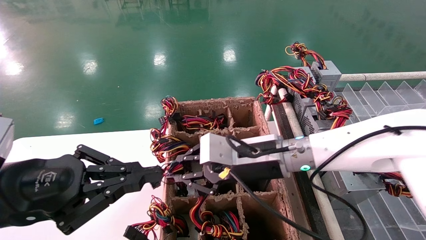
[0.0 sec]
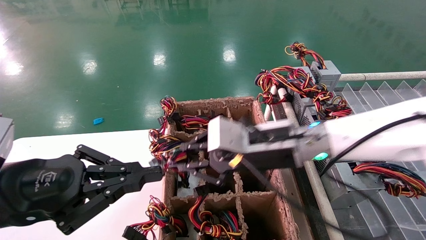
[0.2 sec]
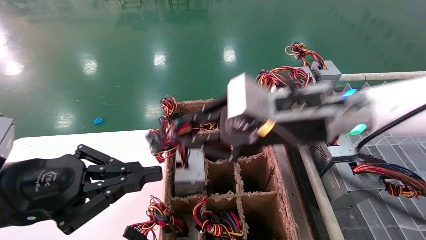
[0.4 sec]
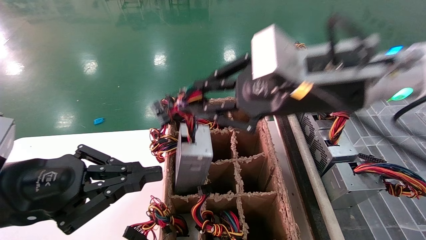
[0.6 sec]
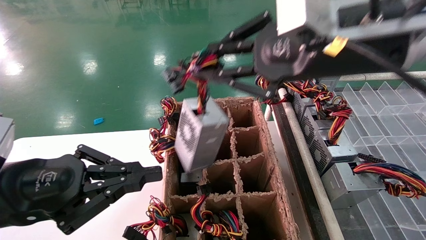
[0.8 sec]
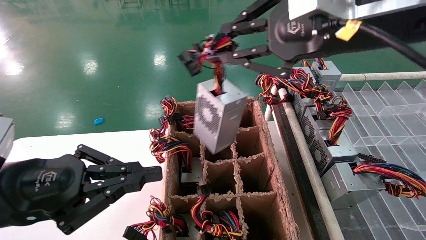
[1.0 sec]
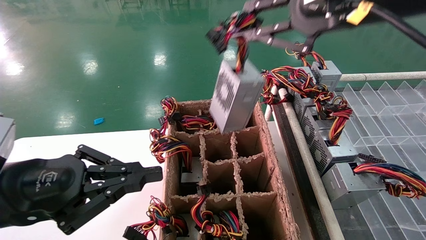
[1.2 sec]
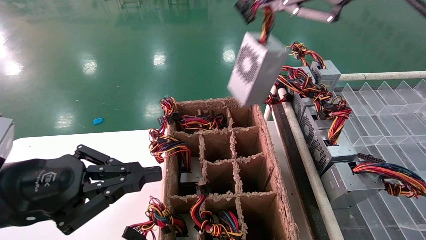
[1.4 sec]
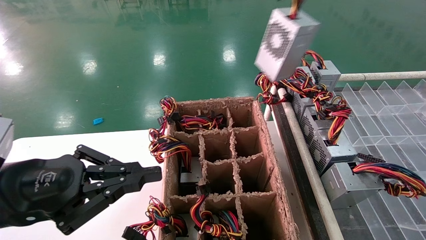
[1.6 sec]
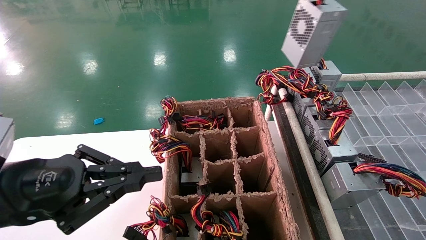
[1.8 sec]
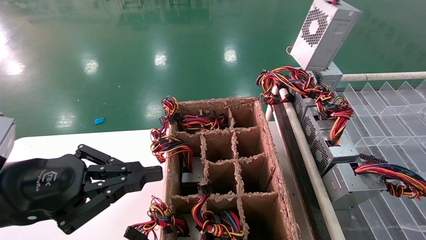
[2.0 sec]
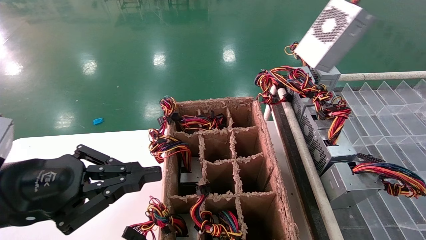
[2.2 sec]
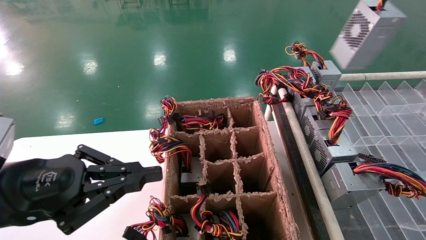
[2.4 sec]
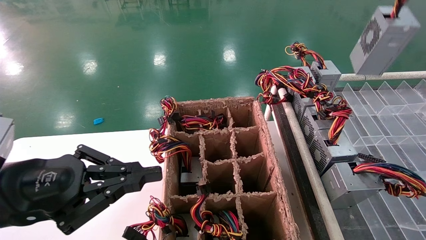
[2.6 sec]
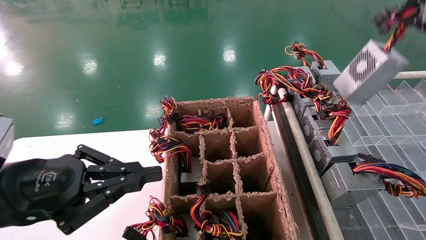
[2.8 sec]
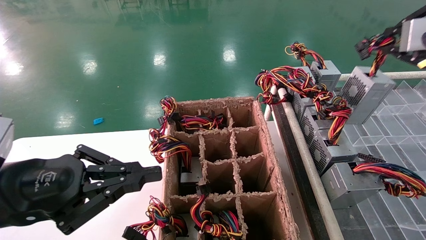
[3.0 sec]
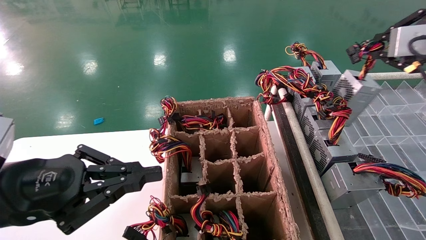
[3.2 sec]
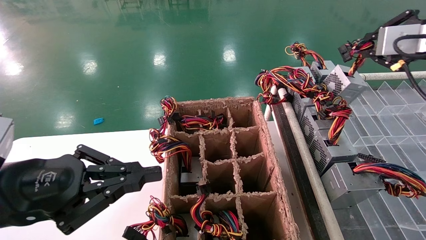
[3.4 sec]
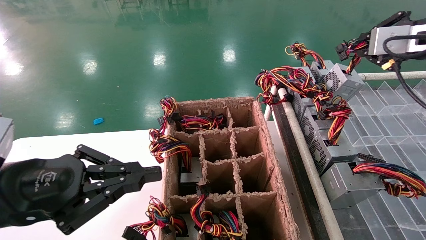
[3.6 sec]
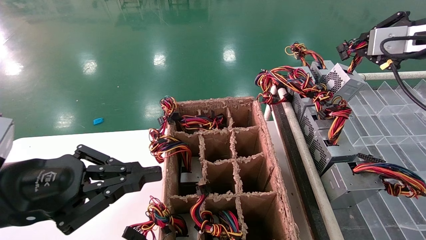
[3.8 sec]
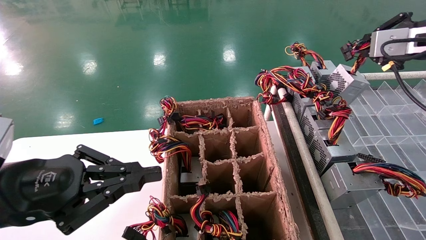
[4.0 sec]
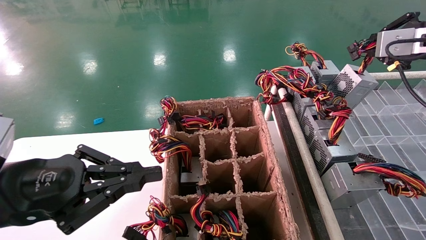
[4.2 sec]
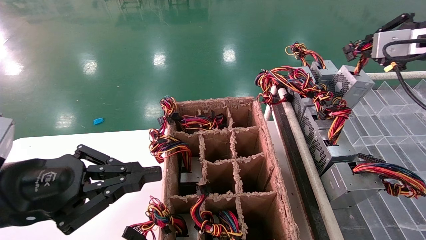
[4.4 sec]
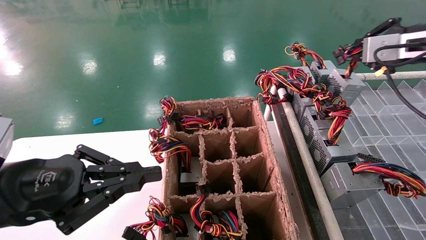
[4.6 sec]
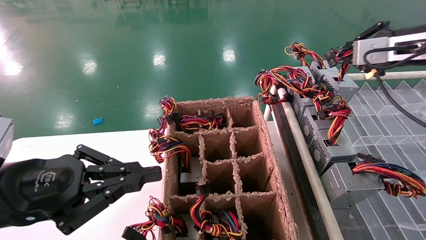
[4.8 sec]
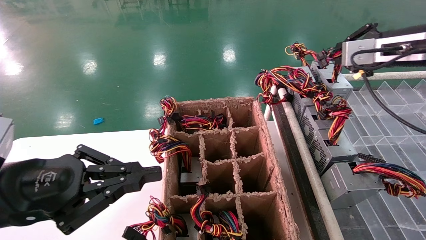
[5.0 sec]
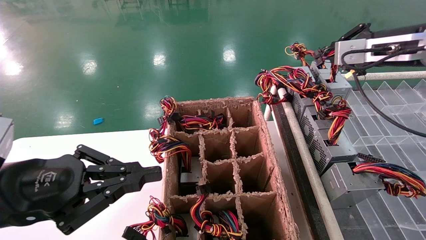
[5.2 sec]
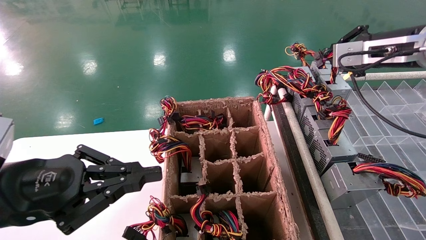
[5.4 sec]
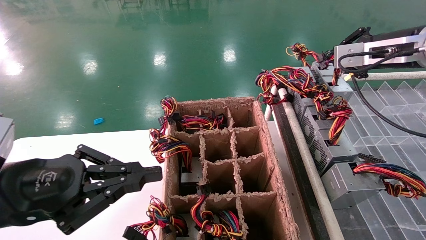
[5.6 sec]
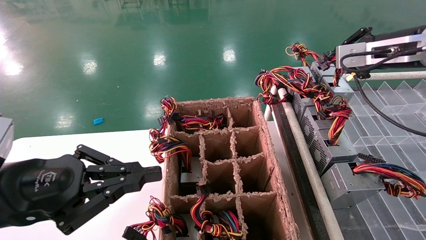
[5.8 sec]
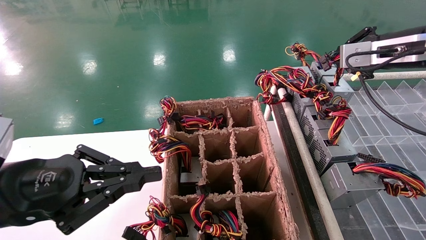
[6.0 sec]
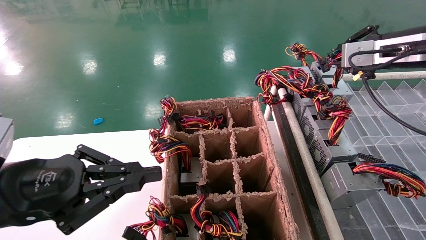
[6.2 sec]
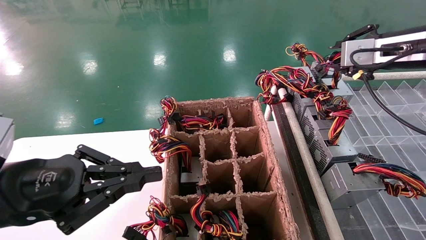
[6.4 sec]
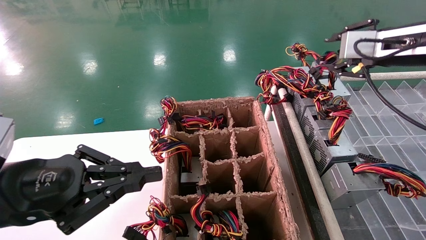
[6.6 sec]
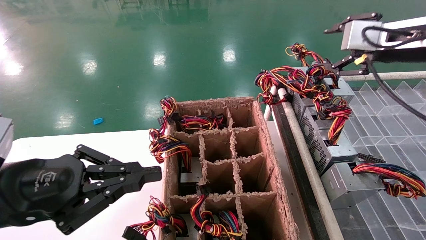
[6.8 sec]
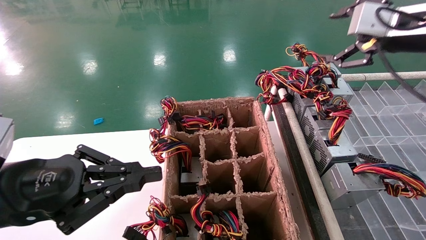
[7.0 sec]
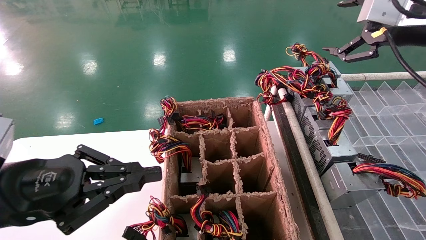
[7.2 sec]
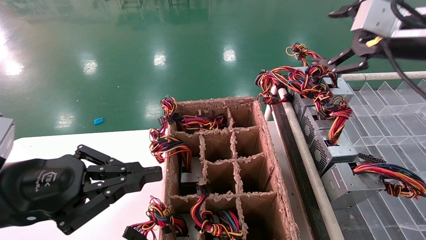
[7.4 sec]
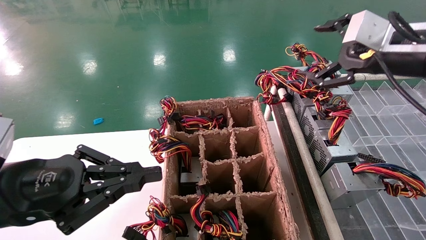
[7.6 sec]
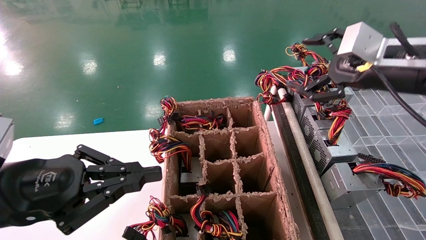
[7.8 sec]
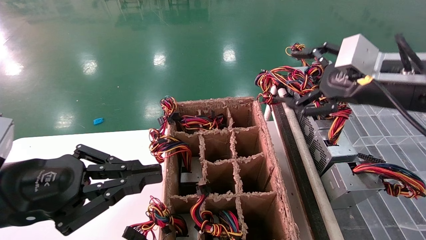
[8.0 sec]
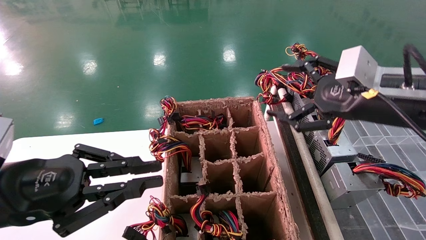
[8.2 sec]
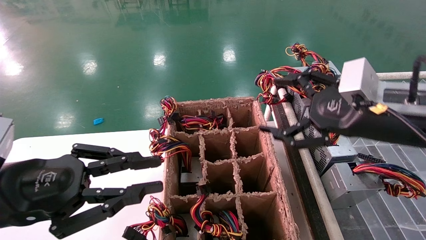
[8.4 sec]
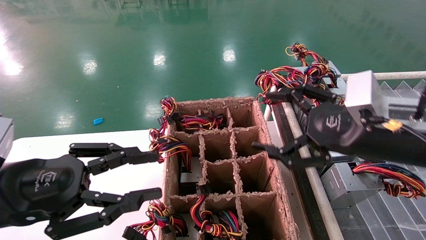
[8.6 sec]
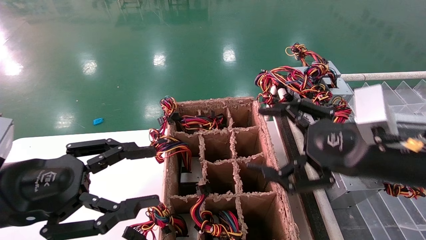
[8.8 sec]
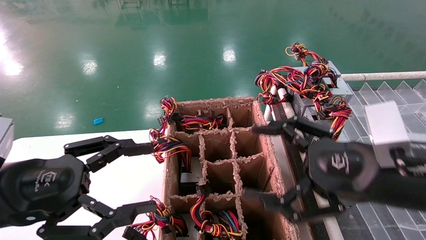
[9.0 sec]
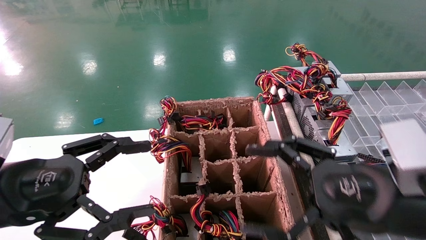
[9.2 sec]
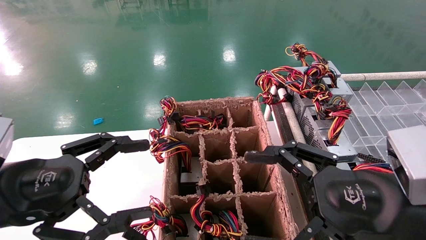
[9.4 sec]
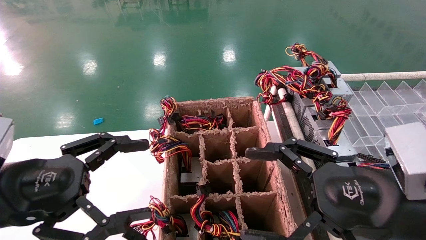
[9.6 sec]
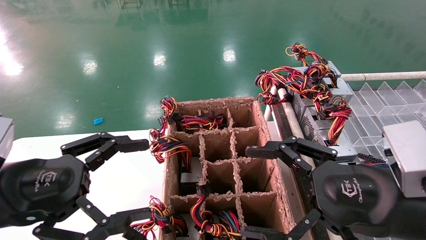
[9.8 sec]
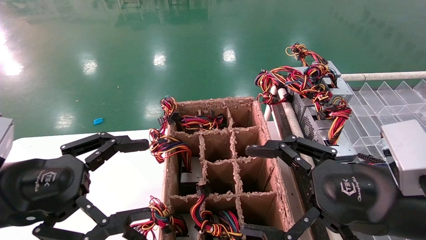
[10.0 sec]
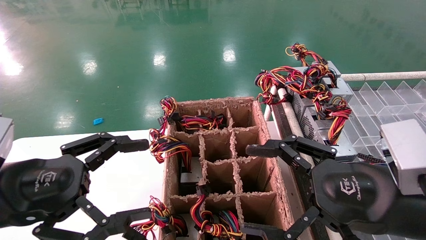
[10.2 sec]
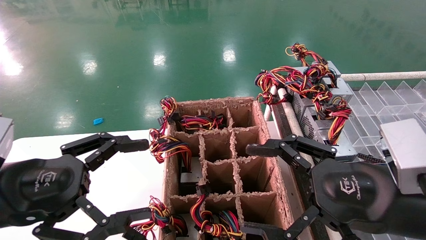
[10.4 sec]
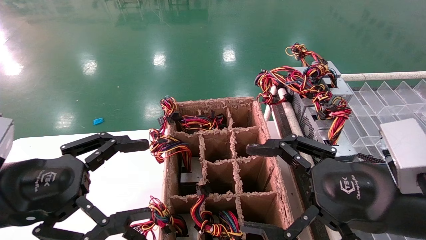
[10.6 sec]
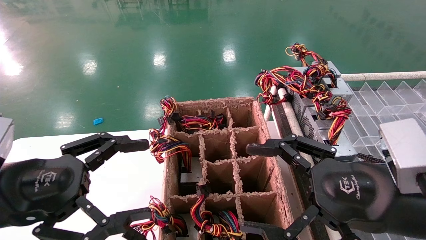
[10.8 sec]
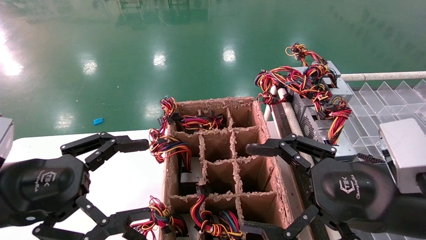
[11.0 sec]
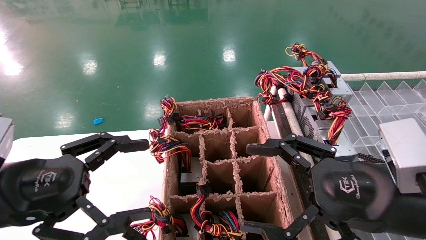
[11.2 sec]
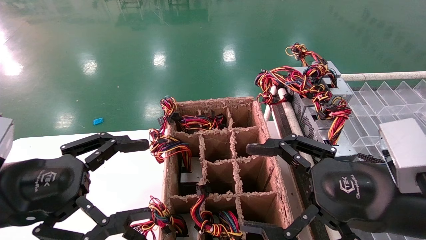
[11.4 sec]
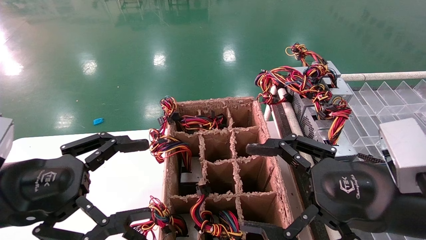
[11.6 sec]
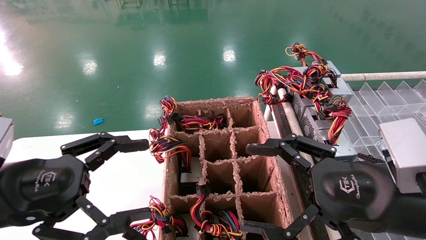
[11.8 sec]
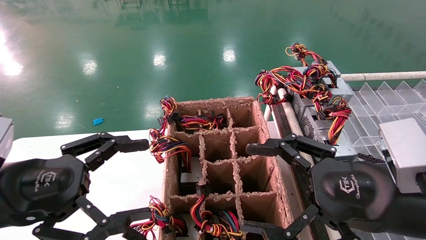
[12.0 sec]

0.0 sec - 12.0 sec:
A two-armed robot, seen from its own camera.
Step, 0.0 sec - 7.0 sec: Place the main unit power supply in the designated area.
0.0 sec - 1.6 sec: The right gripper heads upward and to the right, covering roughly 35 cm.
1.6 sec - 3.0 sec: The right gripper is displaced to the right and downward by approximately 15 cm.
3.0 sec - 4.4 sec: The right gripper is displaced forward by approximately 5 cm.
4.4 sec - 6.0 sec: The right gripper ends up about 5 cm from where it was.
6.0 sec - 7.6 sec: The right gripper shifts by some 5 cm, and opens its fingers.
7.6 sec - 9.0 sec: The right gripper travels downward, backward and to the left by about 20 cm, while the left gripper opens its fingers.
9.0 sec - 10.4 sec: There are only small adjustments of the grippers.
10.4 sec - 12.0 sec: The two grippers keep their place.
